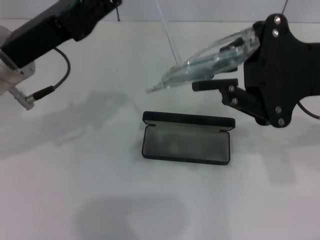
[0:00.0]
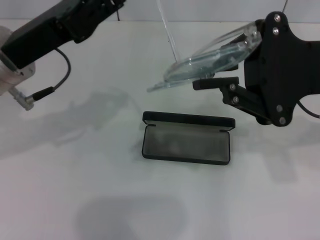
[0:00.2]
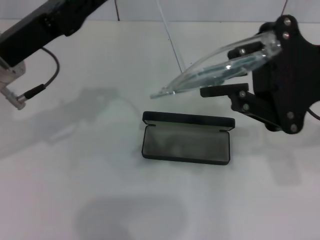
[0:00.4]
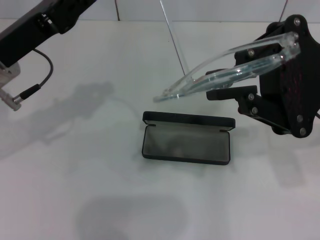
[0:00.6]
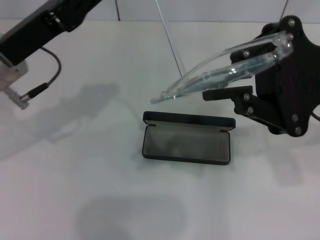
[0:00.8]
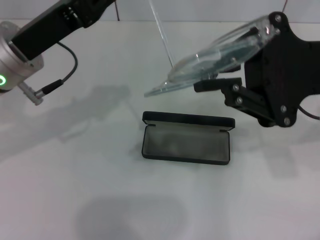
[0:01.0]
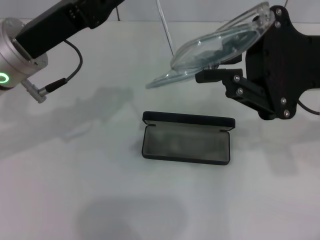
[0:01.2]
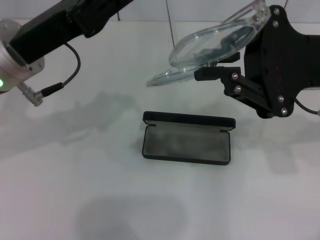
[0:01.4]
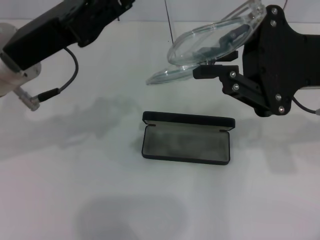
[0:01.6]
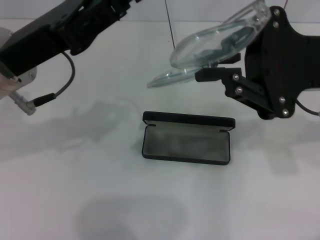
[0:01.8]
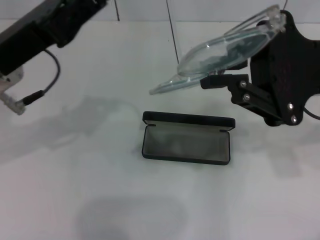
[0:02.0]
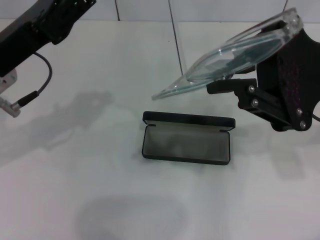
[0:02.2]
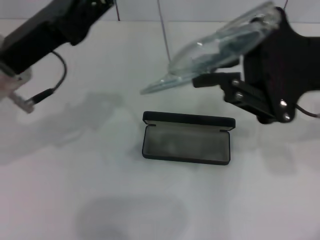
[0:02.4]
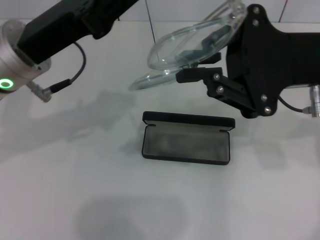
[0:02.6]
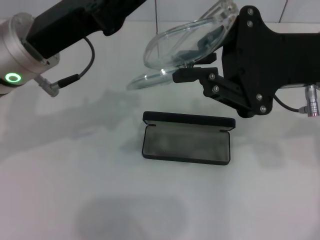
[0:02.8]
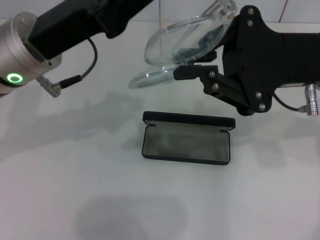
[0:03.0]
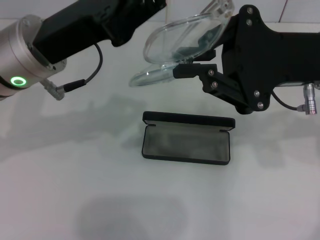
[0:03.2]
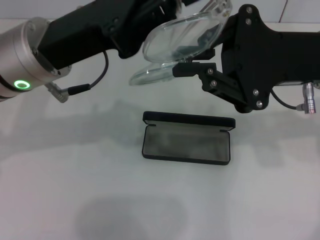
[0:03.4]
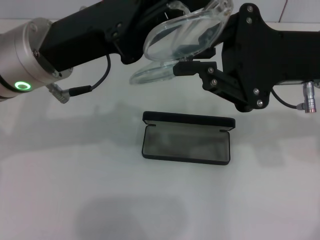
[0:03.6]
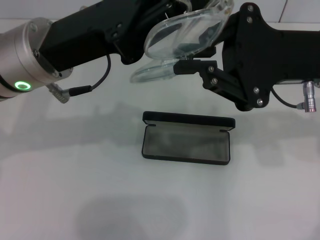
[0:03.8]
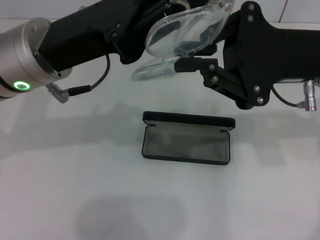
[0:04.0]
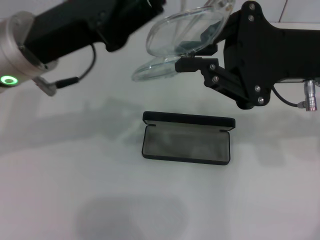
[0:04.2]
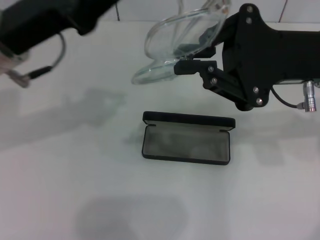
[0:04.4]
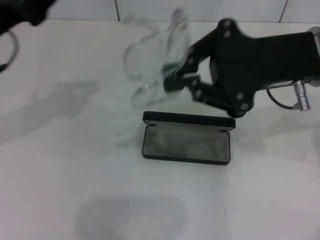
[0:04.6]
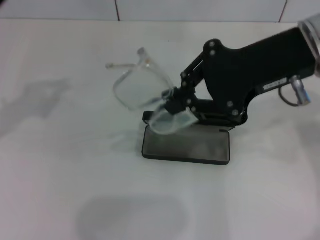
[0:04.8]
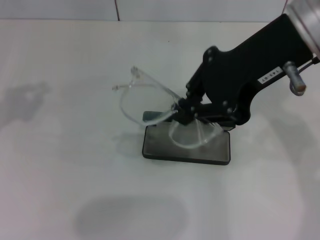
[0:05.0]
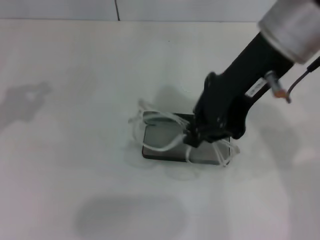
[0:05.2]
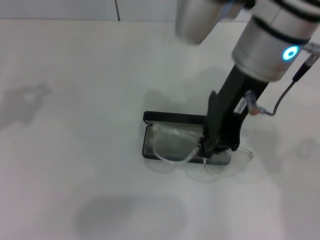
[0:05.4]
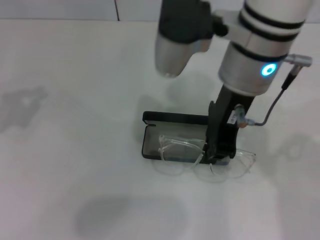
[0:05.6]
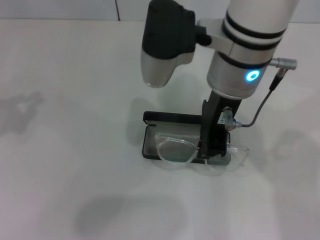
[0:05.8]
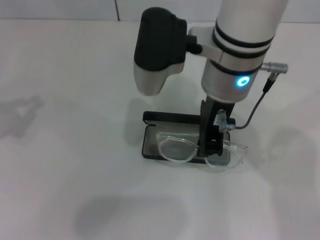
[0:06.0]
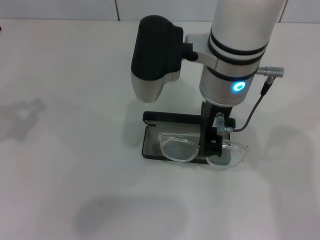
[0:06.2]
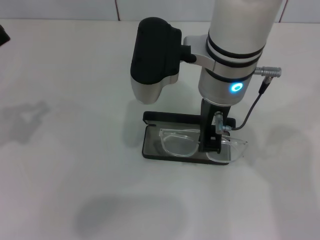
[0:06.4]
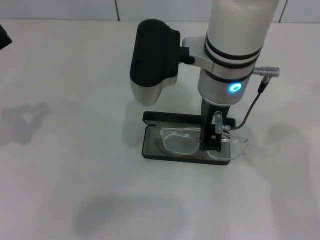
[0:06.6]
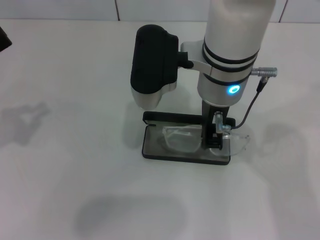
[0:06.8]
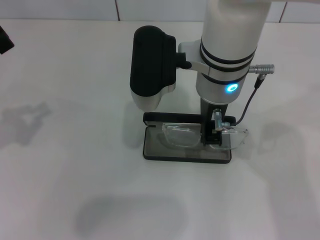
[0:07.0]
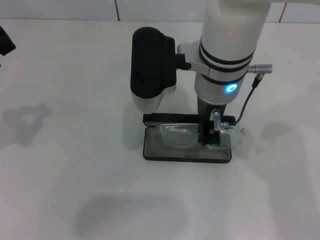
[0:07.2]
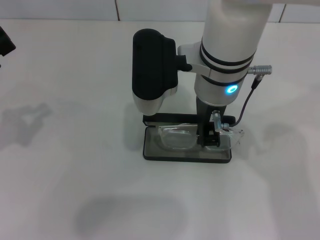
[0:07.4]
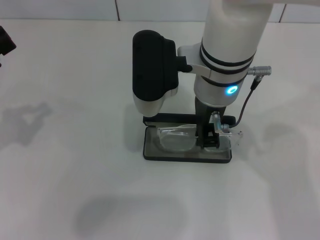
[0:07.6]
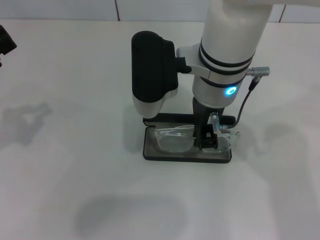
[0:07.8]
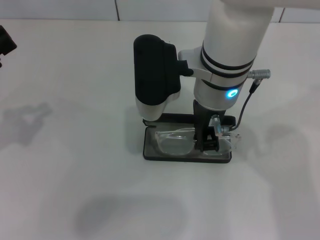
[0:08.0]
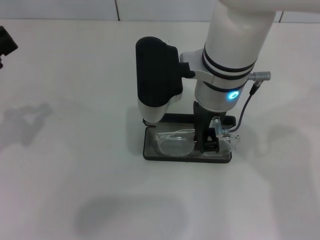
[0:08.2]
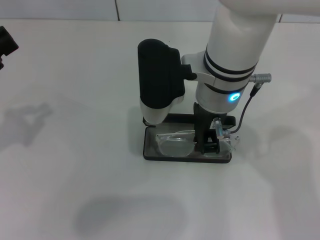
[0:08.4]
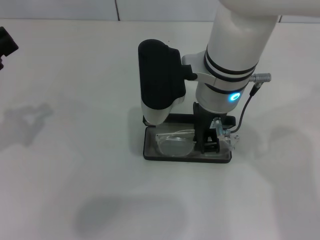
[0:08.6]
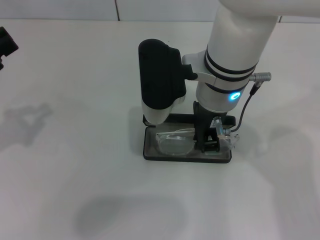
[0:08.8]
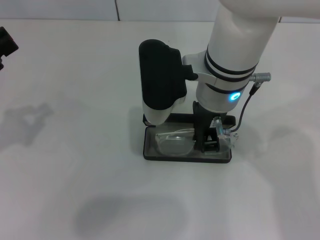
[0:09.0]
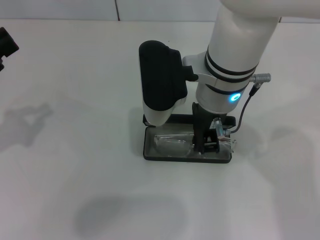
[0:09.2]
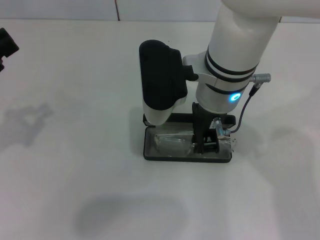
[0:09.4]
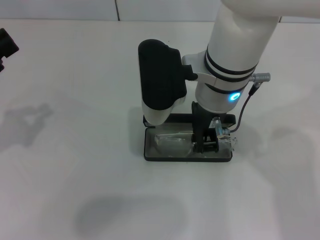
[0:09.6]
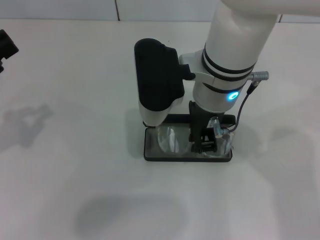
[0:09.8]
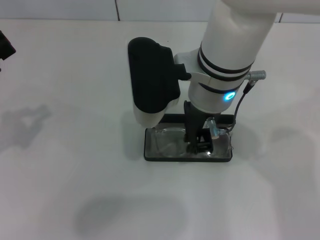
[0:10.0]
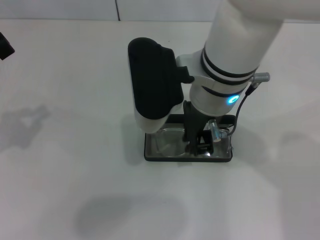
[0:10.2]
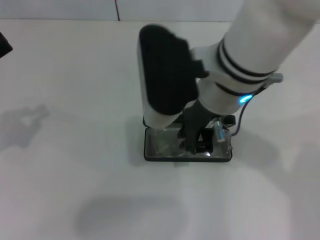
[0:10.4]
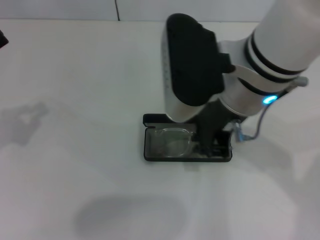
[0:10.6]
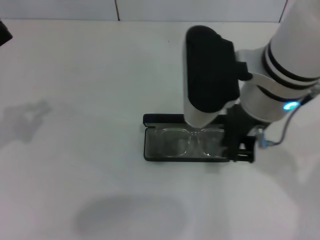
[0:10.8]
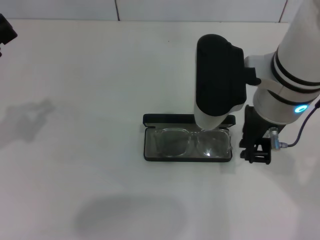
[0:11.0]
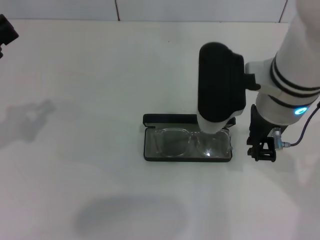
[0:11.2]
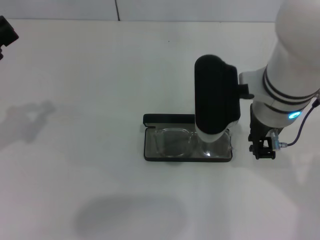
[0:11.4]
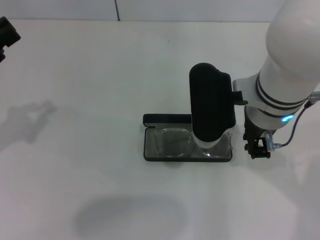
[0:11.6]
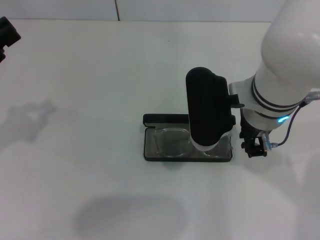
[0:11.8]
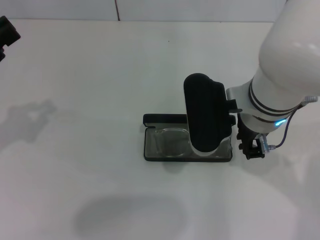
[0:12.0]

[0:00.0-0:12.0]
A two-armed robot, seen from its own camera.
Step, 0:00.0 to 0:04.0: Fold the frame with your left hand.
0:00.0 to 0:04.4: The grippers make only small movements.
0:04.4 to 0:06.0: The left gripper moves to the left and backward, approximately 15 cm. Meanwhile the right gripper travels to the left by approximately 15 cm.
0:06.0 to 0:09.0: The grippers stay close to where they were, moving slightly.
0:09.0 to 0:10.4: The right gripper shifts by some 5 cm.
0:10.4 to 0:12.0: The right gripper travels downward by roughly 5 cm.

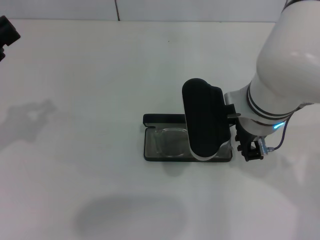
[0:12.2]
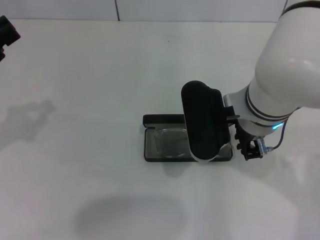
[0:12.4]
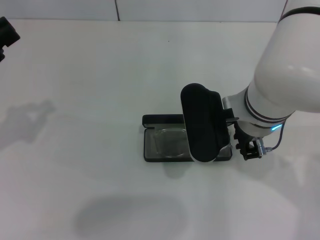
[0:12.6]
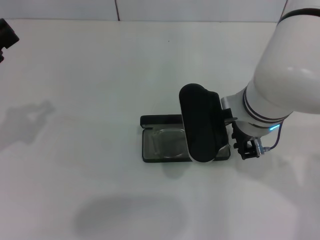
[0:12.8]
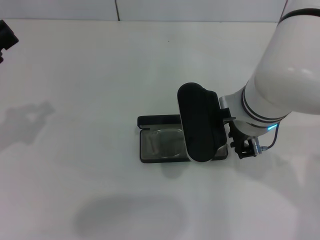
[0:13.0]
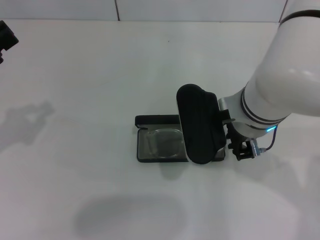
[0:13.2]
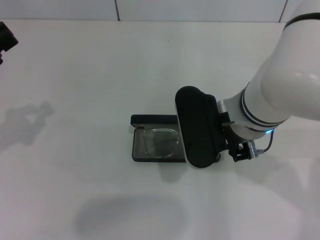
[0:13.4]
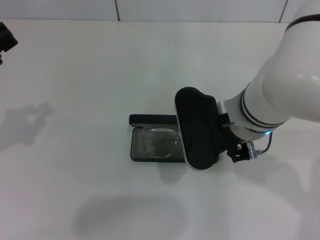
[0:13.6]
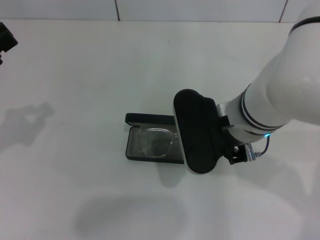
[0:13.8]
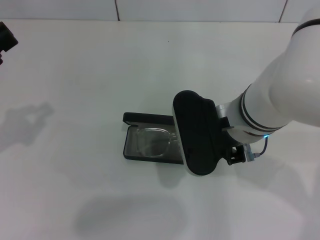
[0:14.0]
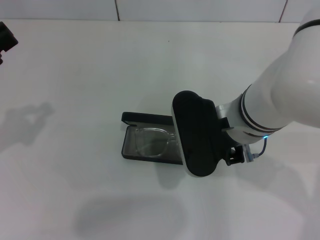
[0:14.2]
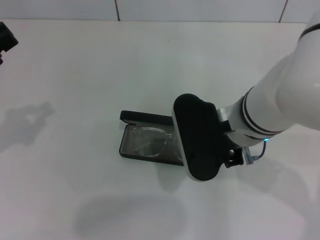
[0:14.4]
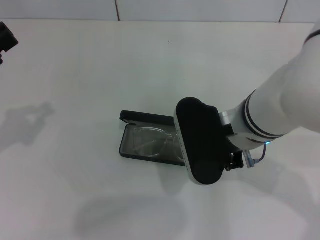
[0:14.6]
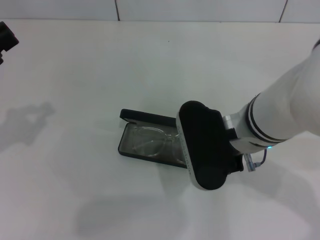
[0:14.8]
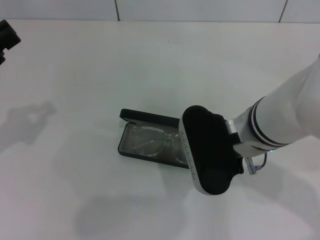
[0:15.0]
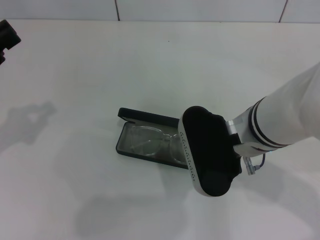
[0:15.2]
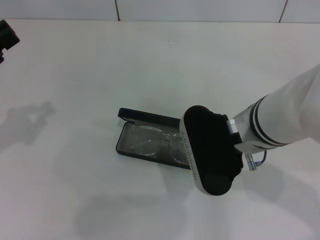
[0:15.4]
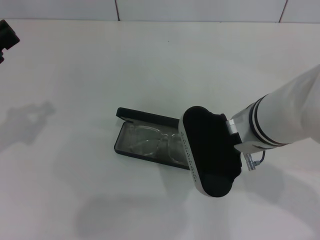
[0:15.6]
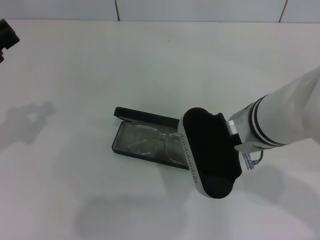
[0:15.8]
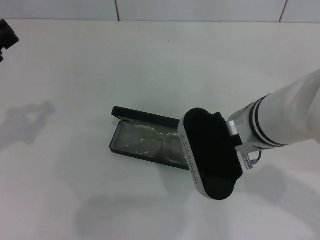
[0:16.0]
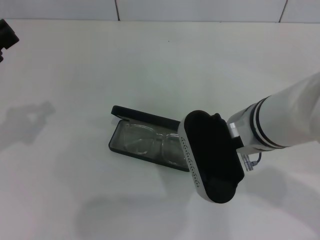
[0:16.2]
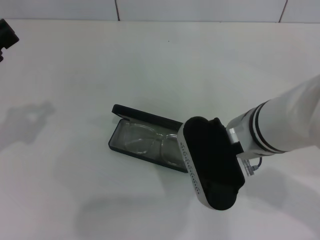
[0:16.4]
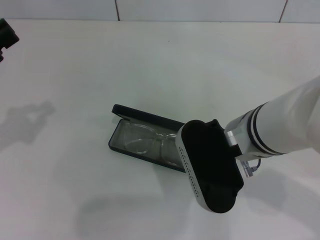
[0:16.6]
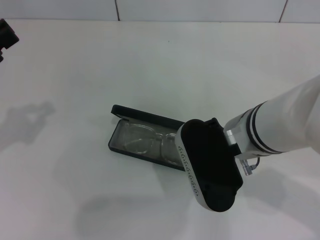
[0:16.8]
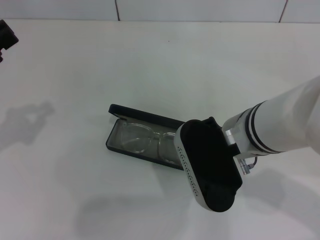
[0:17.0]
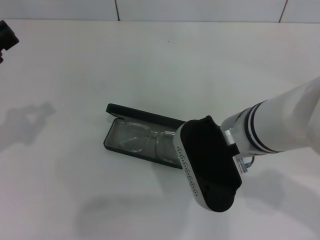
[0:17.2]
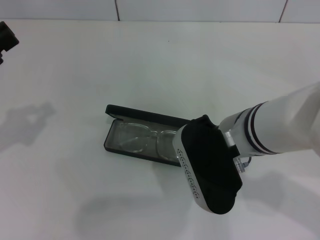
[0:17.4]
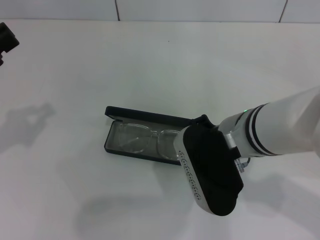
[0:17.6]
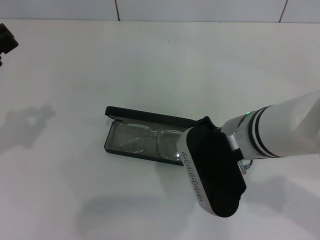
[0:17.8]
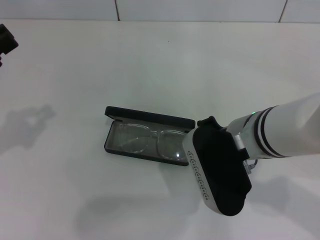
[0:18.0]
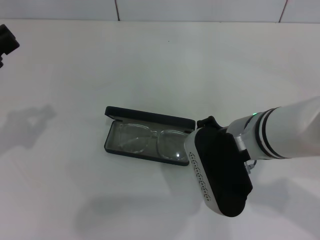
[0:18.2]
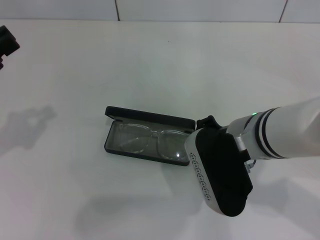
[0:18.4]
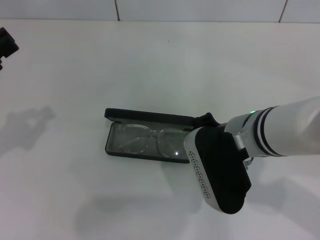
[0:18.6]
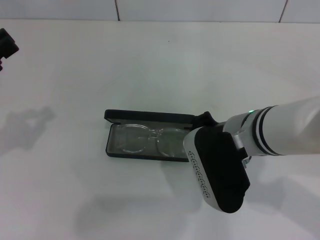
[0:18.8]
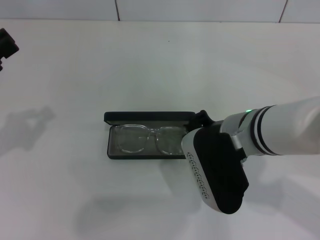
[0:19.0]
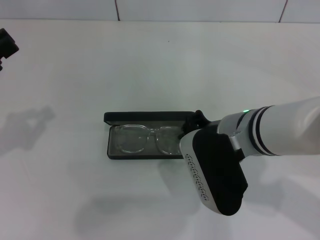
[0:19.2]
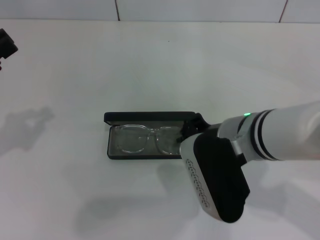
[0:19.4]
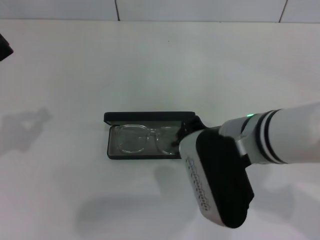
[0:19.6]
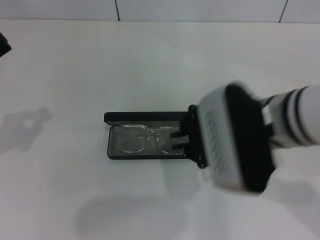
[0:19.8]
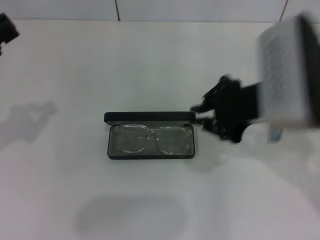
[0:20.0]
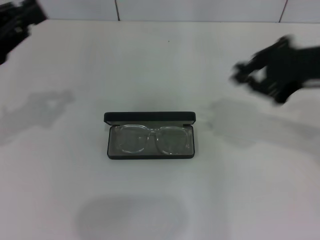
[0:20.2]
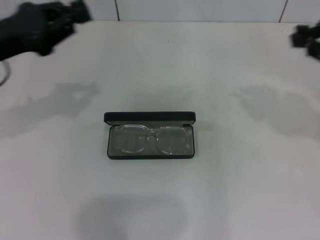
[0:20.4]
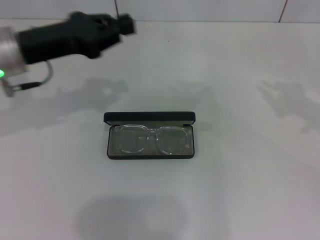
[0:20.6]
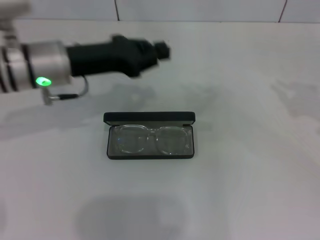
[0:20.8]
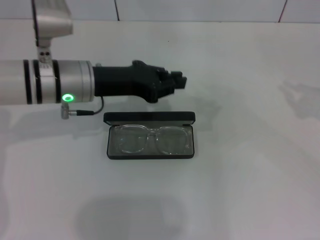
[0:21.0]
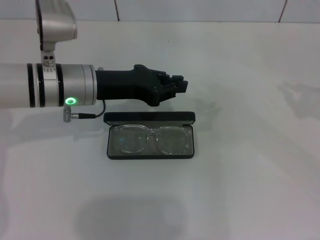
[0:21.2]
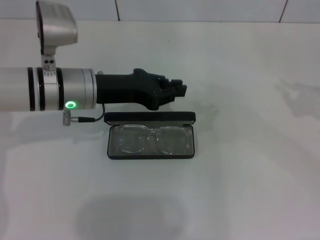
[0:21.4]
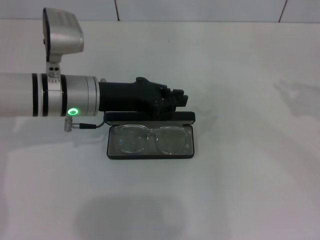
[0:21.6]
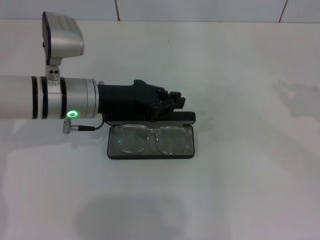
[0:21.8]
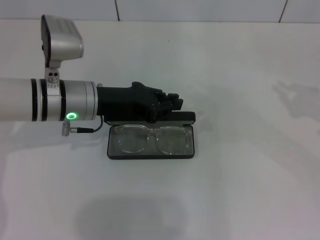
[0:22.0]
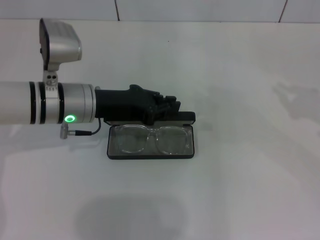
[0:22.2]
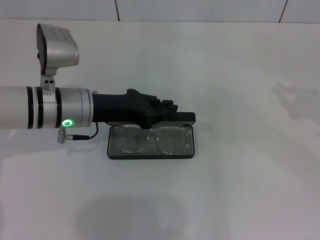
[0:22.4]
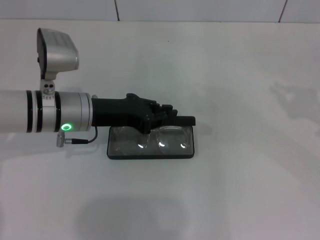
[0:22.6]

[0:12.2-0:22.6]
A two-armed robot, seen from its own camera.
Step, 0:12.2 to 0:19.6: Put the glasses into the case with your right hand.
0:12.2 to 0:15.2: The grippers move only a little.
0:15.2 to 0:18.2: There are only small adjustments of the grippers.
0:18.2 to 0:19.6: The grippers make only small movements.
0:19.6 to 0:21.2: The right gripper moves to the right, some 30 cm. The left gripper moves to the right and forward, about 20 cm.
0:21.2 to 0:22.6: The grippers stay close to where they were, moving slightly.
